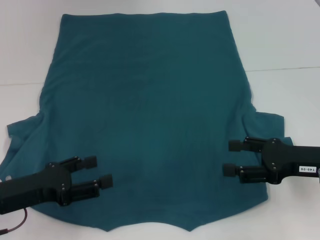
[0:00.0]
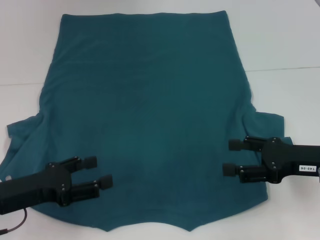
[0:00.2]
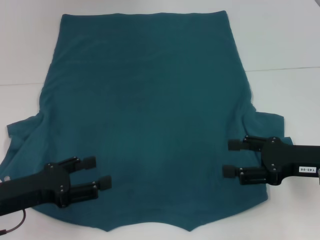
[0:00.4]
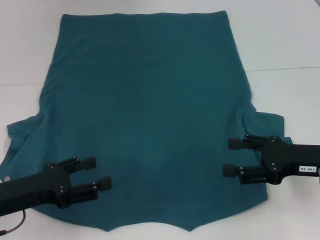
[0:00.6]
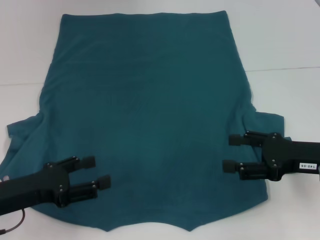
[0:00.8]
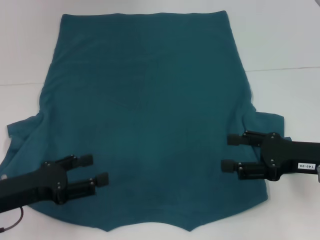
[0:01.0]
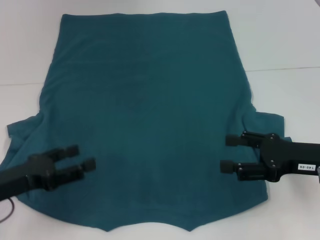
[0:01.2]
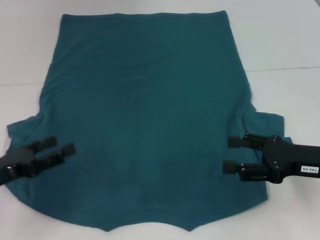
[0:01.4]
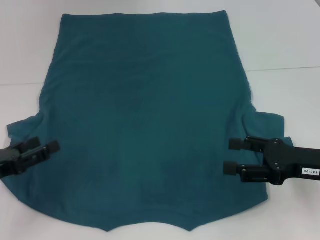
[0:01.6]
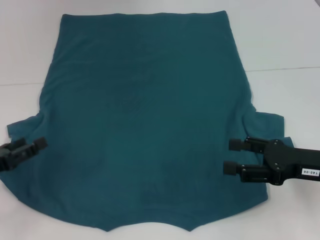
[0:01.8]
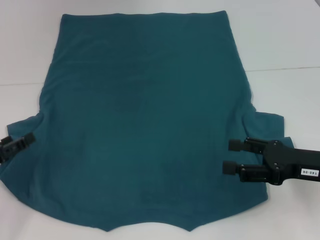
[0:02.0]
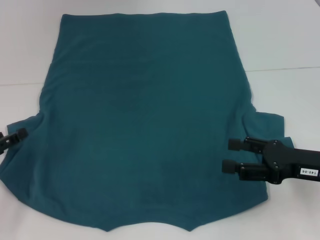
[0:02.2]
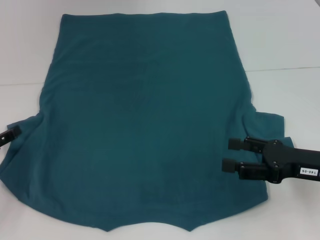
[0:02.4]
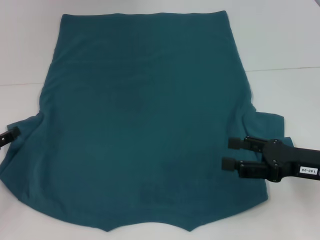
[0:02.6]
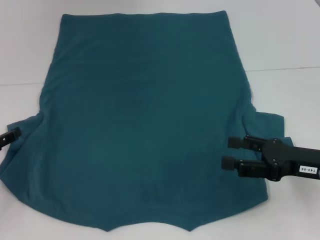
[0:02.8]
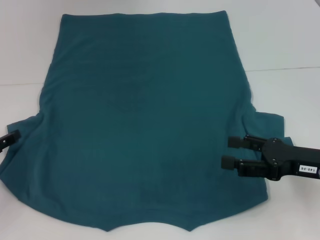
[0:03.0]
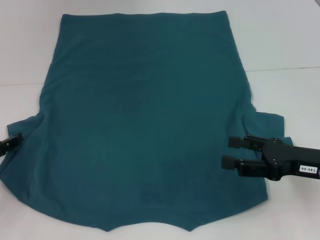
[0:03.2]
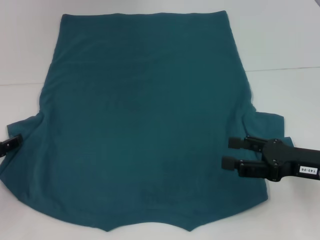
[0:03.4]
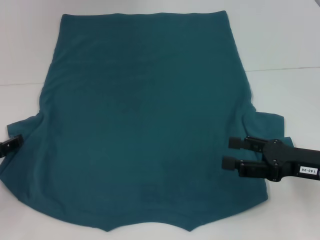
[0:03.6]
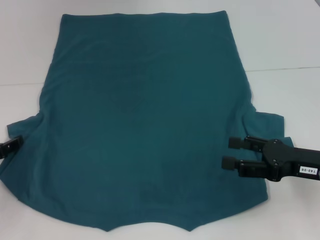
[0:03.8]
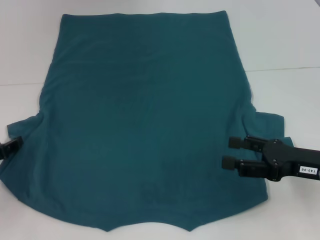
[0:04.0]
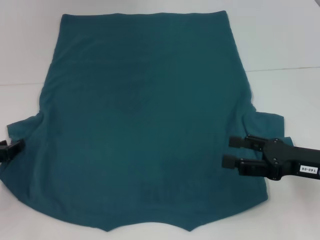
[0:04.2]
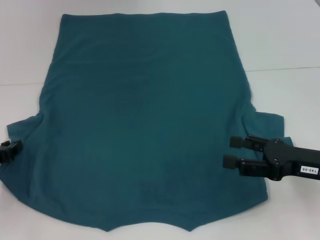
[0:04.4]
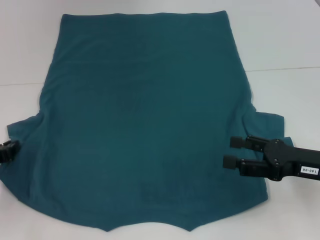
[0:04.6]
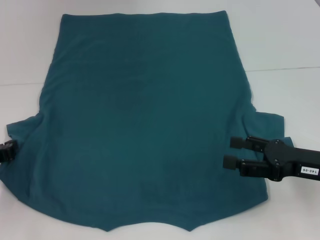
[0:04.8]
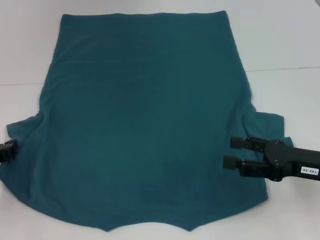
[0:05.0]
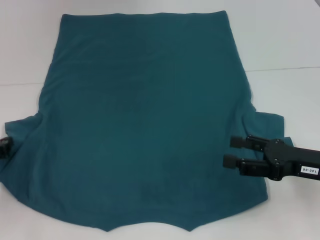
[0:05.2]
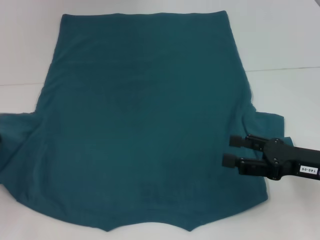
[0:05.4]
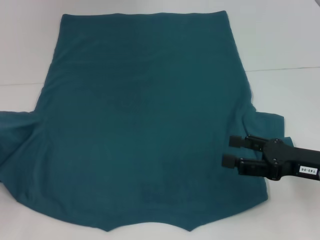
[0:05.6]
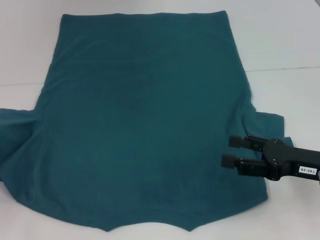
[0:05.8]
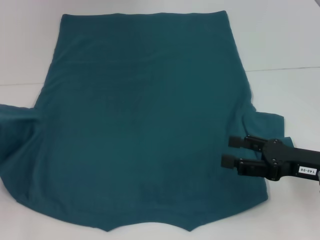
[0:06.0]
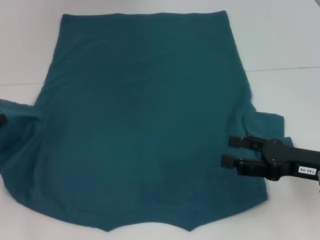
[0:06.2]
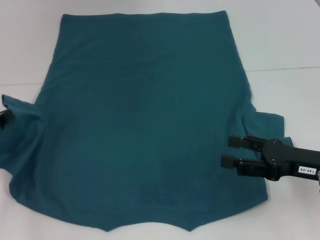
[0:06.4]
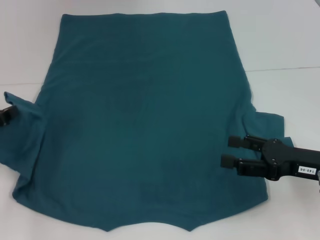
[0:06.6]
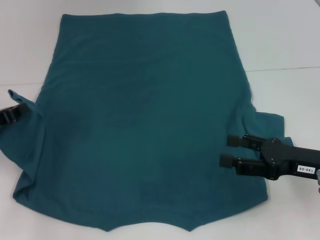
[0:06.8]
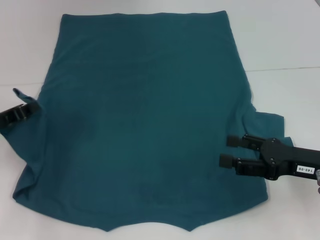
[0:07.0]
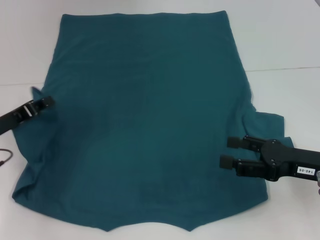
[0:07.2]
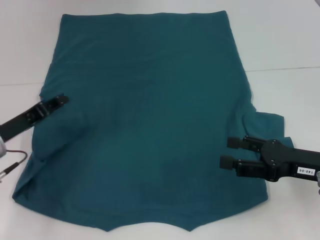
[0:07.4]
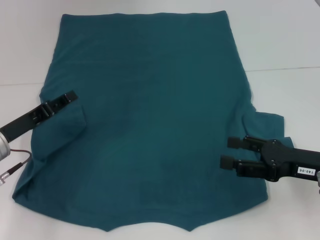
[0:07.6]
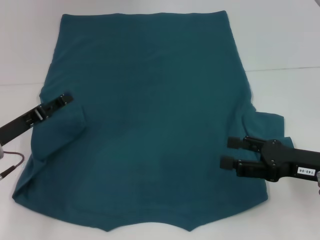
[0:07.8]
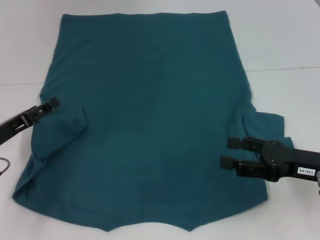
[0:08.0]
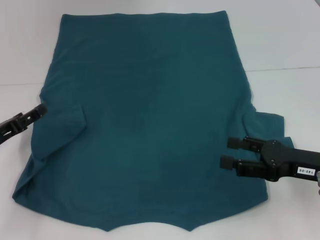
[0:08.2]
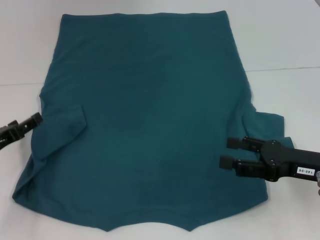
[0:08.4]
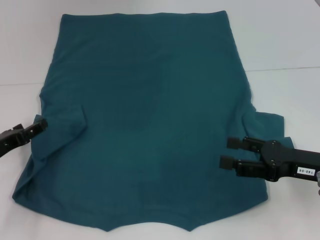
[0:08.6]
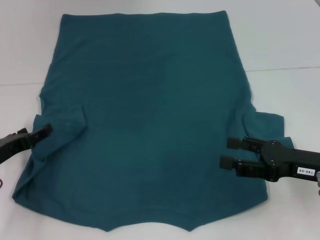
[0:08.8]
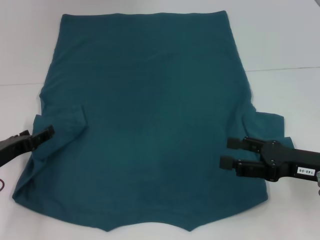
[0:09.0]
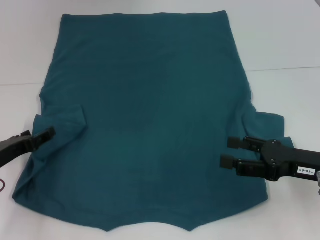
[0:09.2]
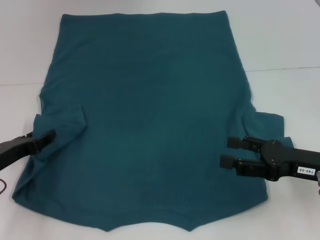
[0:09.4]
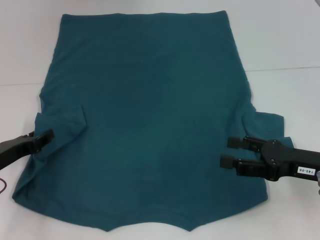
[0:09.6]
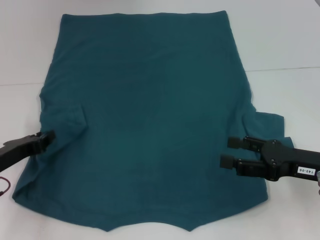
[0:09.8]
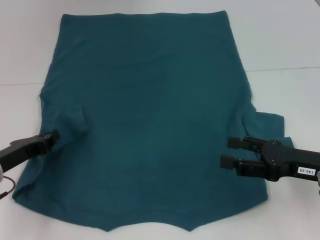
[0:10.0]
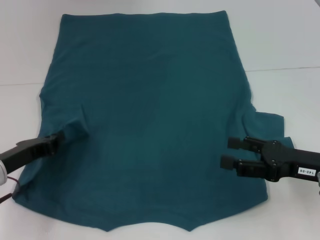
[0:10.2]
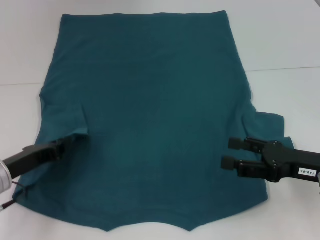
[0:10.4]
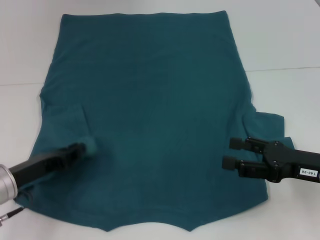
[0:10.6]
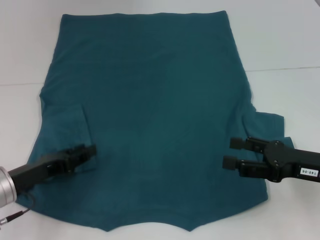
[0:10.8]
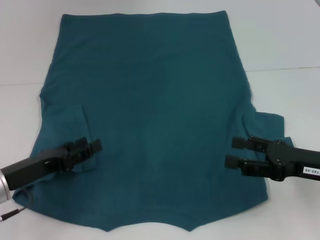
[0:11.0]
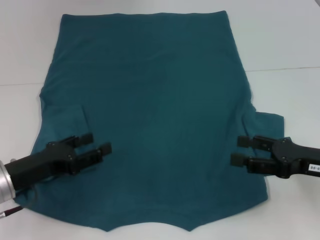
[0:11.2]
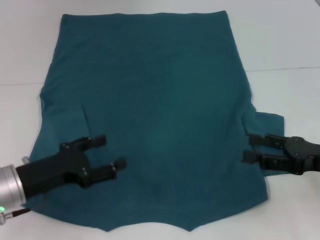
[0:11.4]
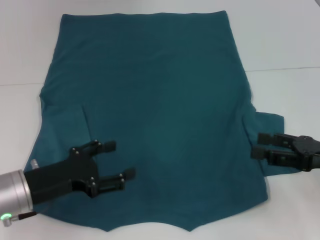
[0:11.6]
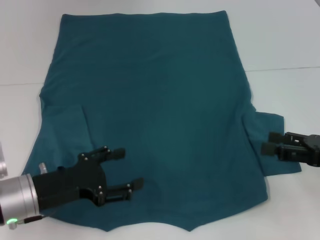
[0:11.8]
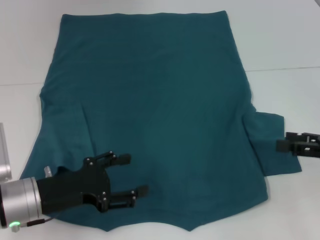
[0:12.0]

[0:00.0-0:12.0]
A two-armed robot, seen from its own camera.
Step, 0:00.0 to 0:07.6: Fold the bottom left sleeve with your left hand.
0:00.0 to 0:01.6: The left gripper moves to the left, approximately 5 cm.
0:01.6 to 0:03.0: The left gripper changes place by approximately 5 cm.
0:04.4 to 0:06.0: The left gripper closes.
0:06.0 to 0:07.6: The left gripper is displaced to the right by about 10 cm.
0:07.6 to 0:09.0: The left gripper opens up.
0:09.0 to 0:10.4: The left gripper closes.
0:10.4 to 0:12.0: The two grippers go about 5 cm to the right. The left gripper opens up.

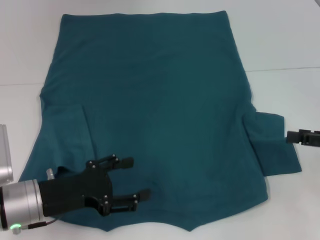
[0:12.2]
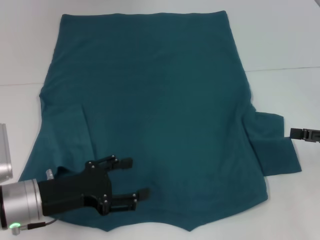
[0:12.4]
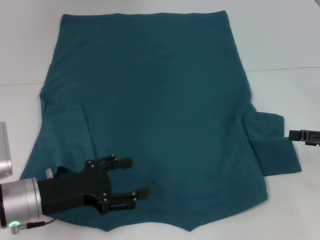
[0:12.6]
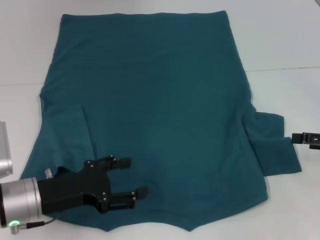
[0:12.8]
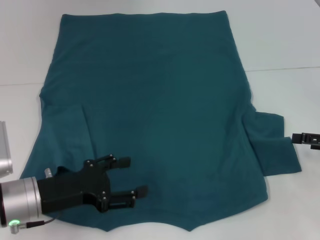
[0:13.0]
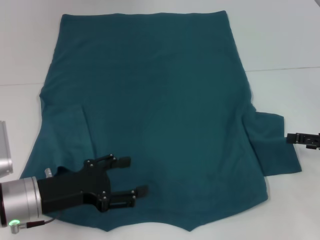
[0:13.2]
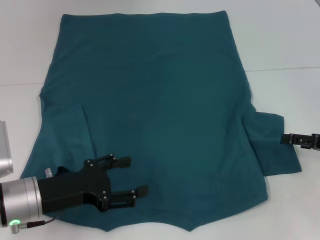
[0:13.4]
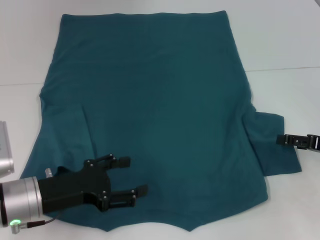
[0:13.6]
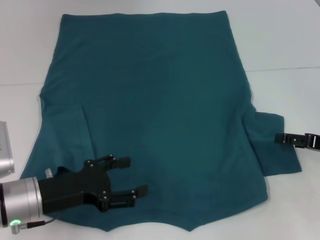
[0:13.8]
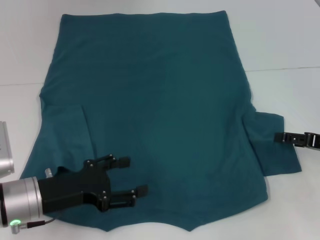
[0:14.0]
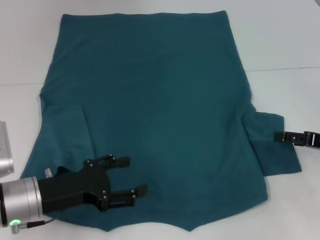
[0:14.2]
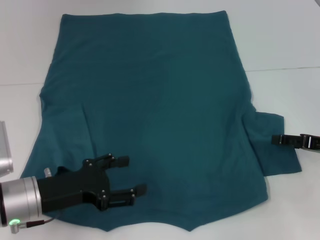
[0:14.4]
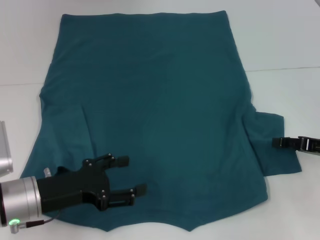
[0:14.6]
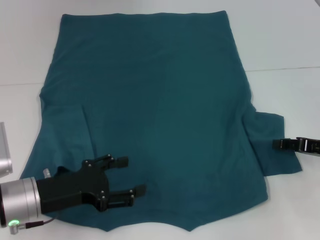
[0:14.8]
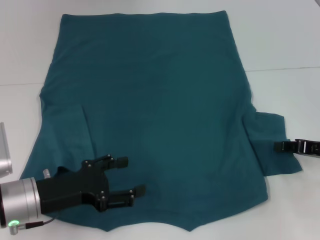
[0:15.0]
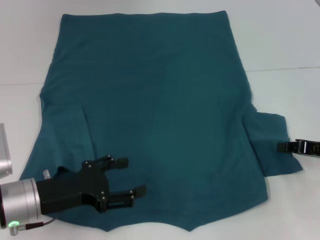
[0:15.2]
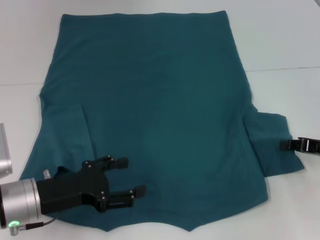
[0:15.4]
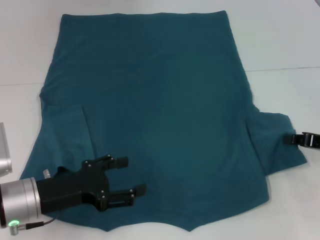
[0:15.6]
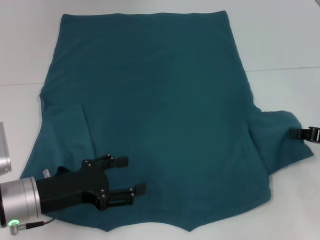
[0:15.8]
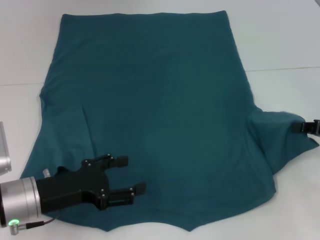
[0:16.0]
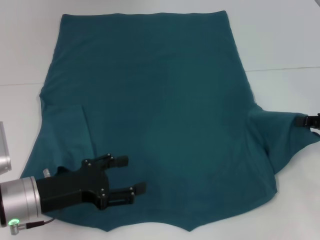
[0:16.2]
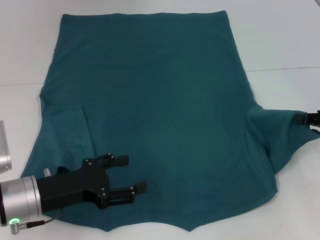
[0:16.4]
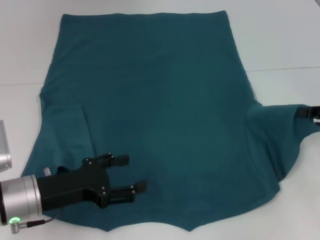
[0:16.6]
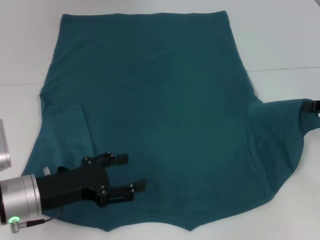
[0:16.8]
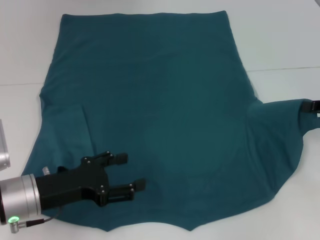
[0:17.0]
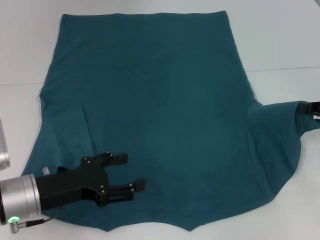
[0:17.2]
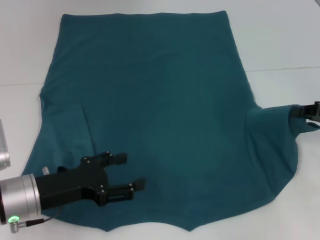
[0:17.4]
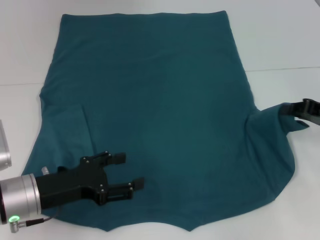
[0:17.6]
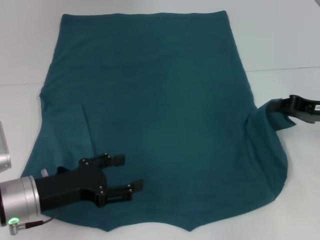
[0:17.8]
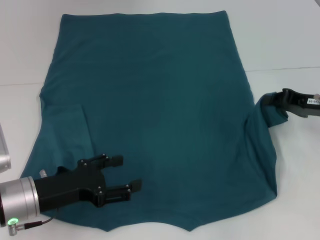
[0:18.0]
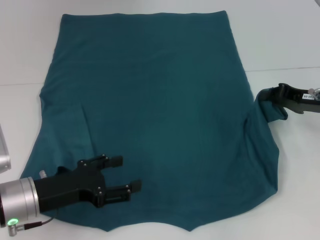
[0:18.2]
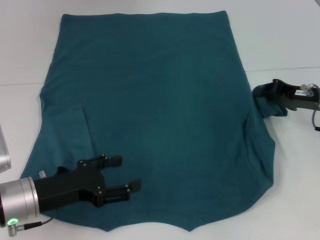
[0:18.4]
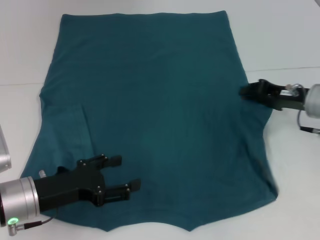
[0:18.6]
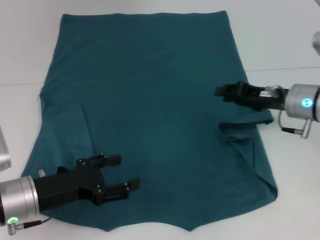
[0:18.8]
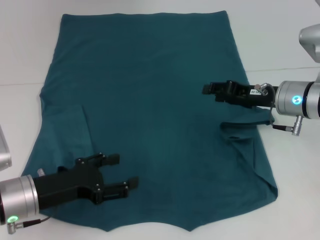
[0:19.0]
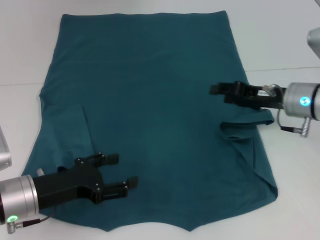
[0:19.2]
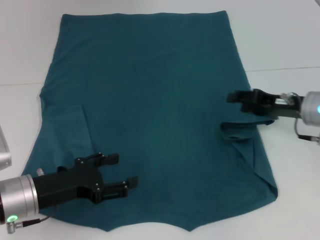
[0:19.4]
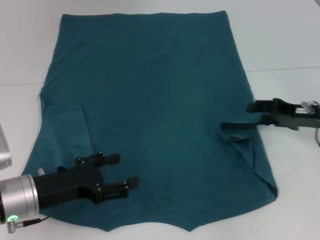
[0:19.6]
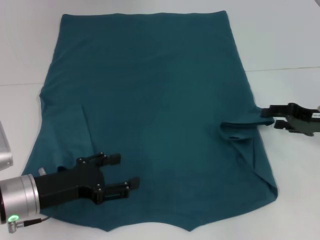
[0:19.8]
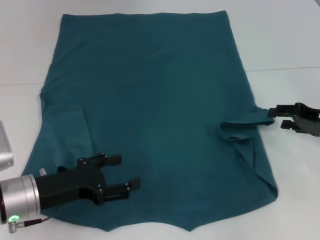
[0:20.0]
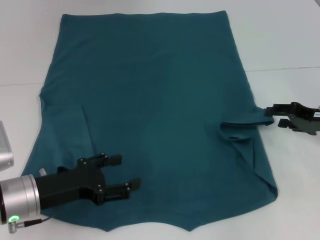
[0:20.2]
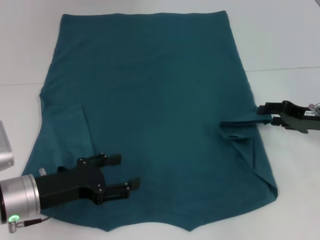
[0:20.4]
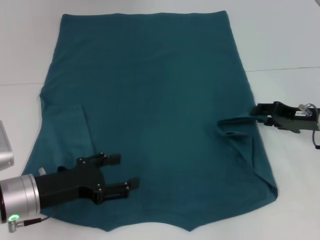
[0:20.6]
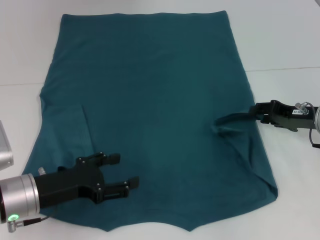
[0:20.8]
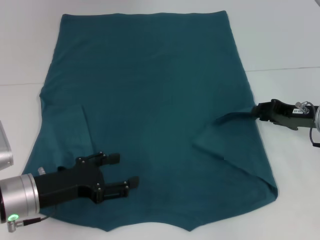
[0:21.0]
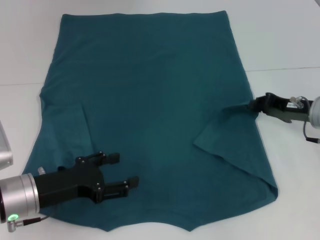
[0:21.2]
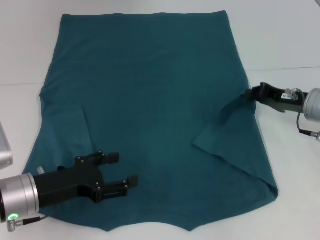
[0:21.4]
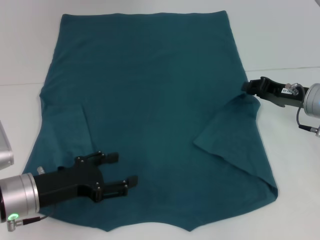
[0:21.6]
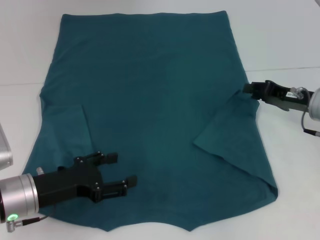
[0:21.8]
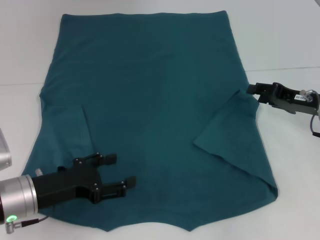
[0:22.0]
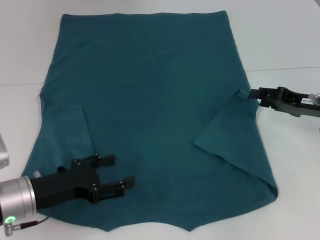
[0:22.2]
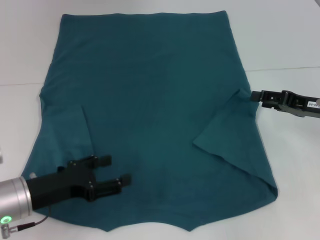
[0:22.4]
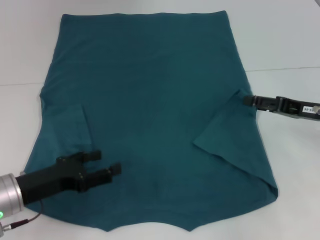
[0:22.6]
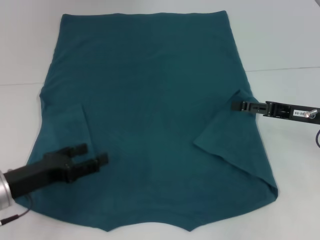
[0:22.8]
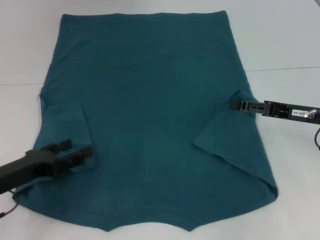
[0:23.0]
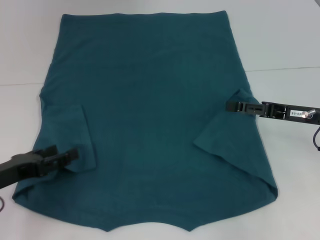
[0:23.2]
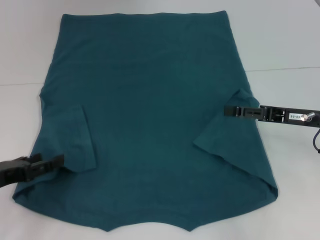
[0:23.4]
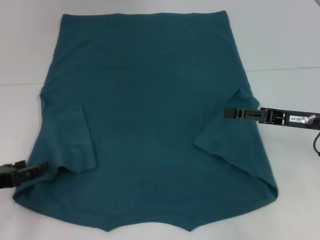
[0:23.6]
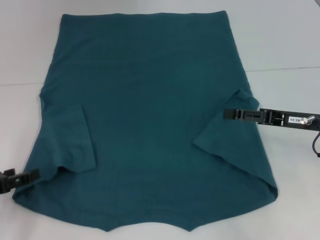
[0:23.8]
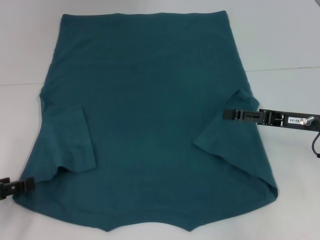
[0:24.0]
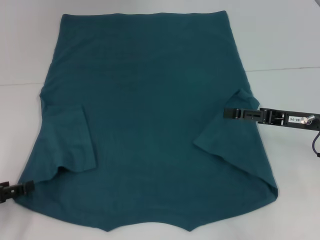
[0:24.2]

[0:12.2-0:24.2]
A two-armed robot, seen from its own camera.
Step, 0:12.2 to 0:22.0: Fold the bottom right sleeve to the right.
0:12.2 to 0:13.8: The right gripper shifts by about 5 cm.
0:13.8 to 0:15.2: The right gripper closes its fingers.
0:15.2 to 0:16.6: The right gripper heads upward, covering some 5 cm.
0:16.6 to 0:18.2: The right gripper is displaced to the left by some 5 cm.
0:18.2 to 0:19.8: The right gripper reaches approximately 10 cm to the left, then returns, and opens.
0:19.8 to 0:21.2: The right gripper closes up.
0:21.2 to 0:22.6: The right gripper opens.
0:22.6 to 0:24.2: The left gripper travels to the left by roughly 10 cm.
